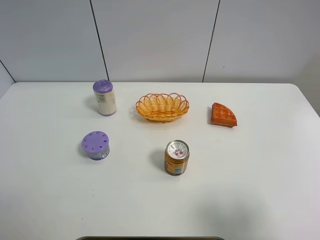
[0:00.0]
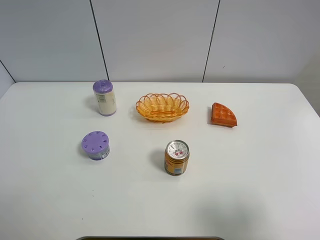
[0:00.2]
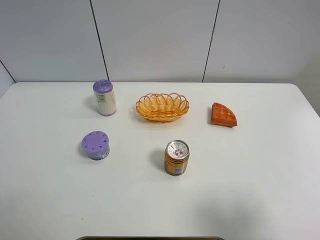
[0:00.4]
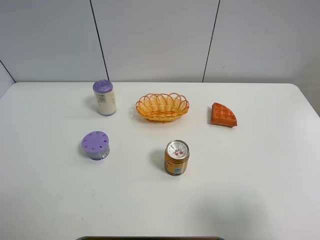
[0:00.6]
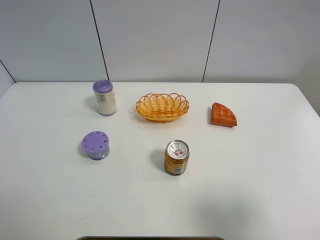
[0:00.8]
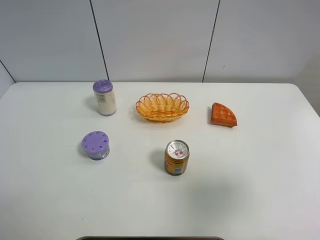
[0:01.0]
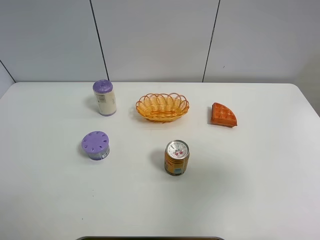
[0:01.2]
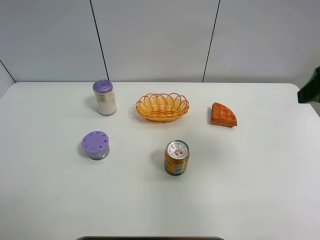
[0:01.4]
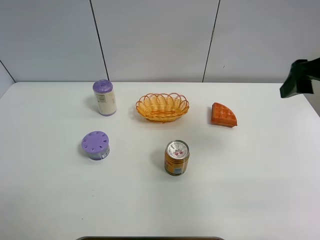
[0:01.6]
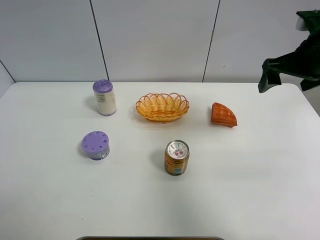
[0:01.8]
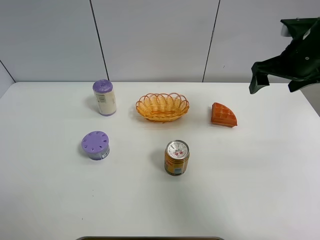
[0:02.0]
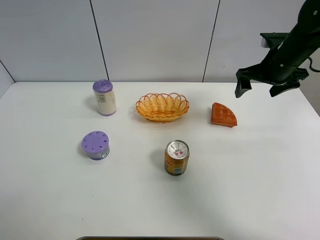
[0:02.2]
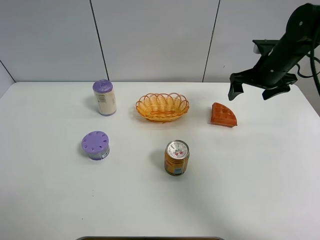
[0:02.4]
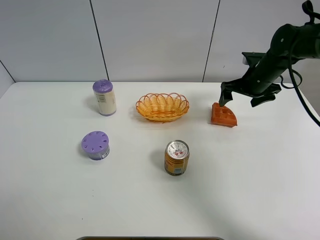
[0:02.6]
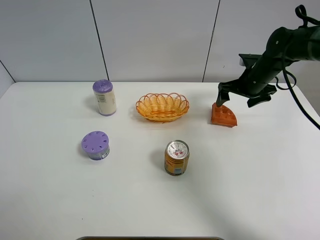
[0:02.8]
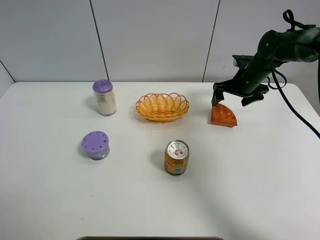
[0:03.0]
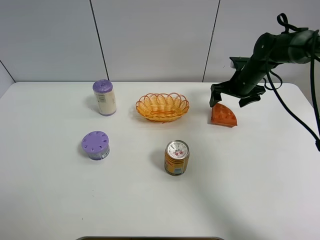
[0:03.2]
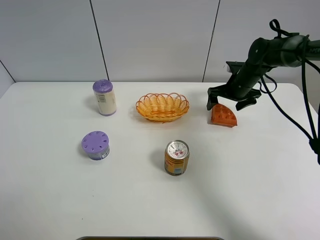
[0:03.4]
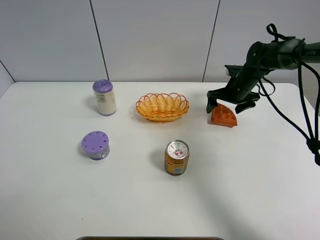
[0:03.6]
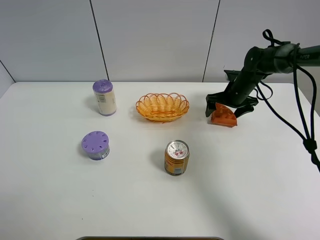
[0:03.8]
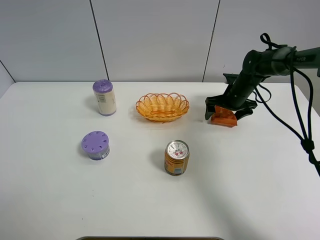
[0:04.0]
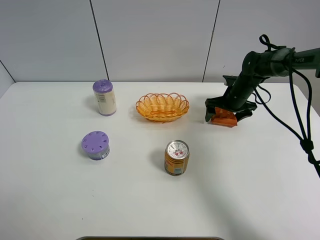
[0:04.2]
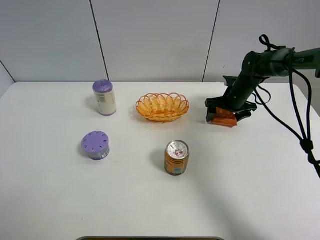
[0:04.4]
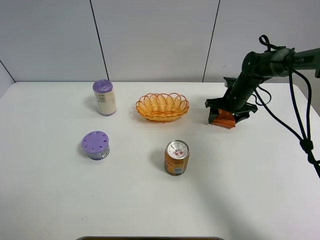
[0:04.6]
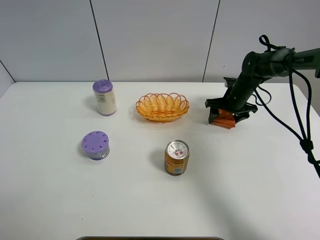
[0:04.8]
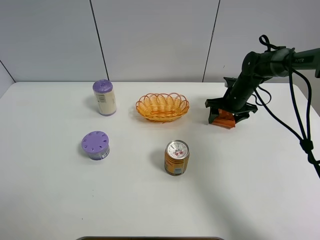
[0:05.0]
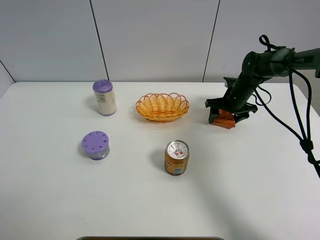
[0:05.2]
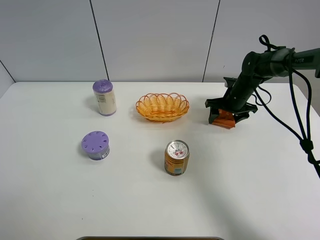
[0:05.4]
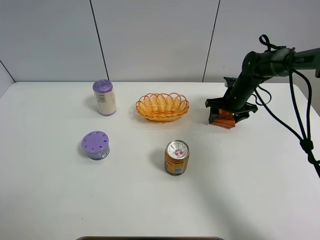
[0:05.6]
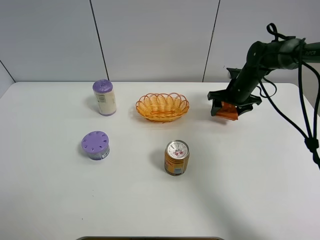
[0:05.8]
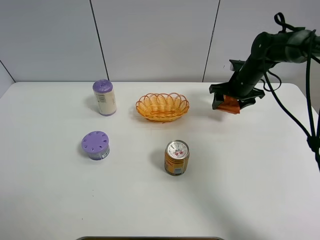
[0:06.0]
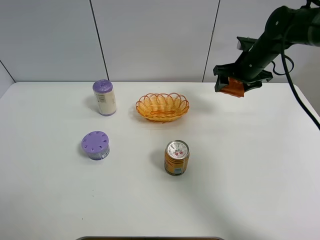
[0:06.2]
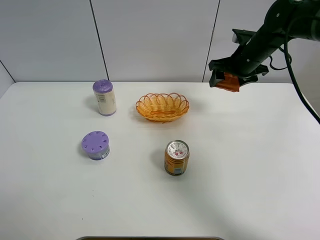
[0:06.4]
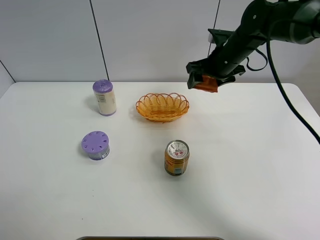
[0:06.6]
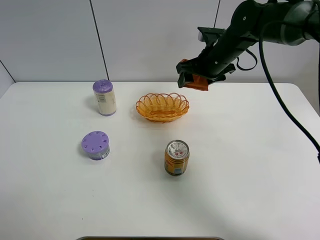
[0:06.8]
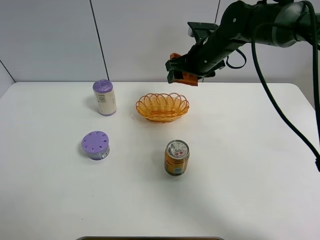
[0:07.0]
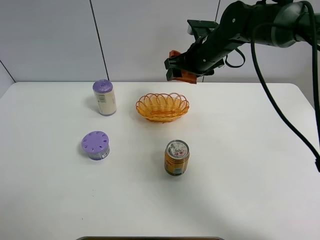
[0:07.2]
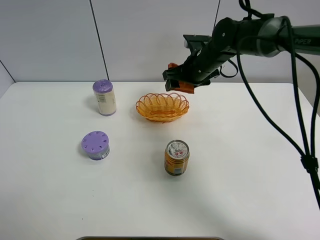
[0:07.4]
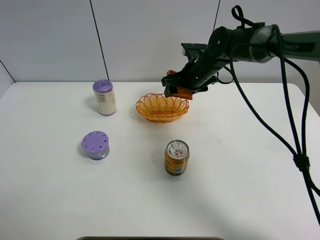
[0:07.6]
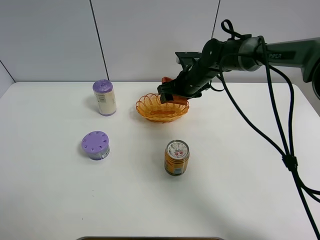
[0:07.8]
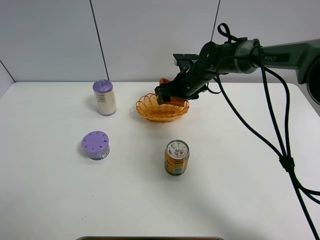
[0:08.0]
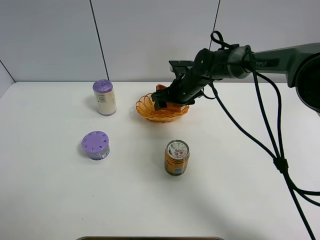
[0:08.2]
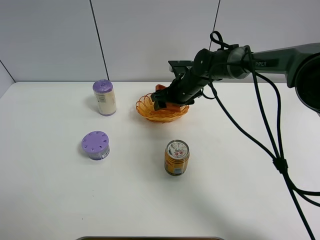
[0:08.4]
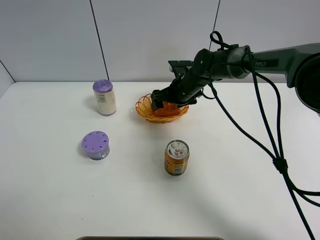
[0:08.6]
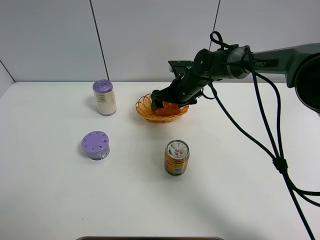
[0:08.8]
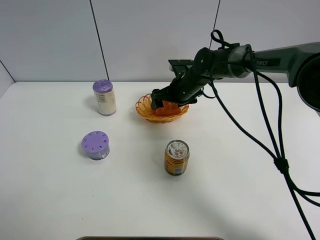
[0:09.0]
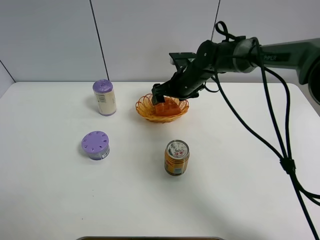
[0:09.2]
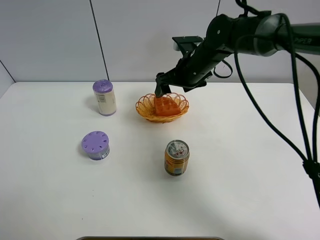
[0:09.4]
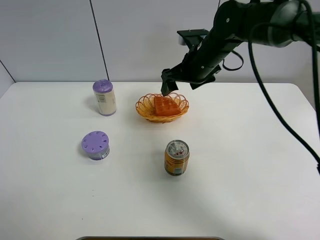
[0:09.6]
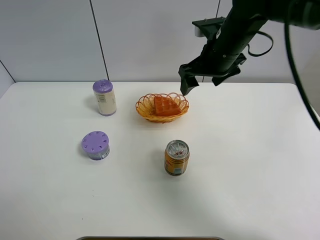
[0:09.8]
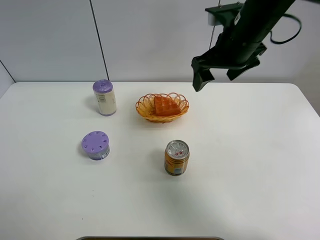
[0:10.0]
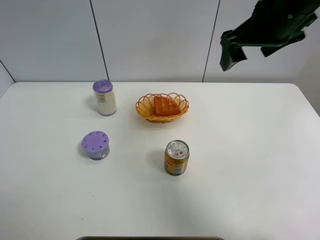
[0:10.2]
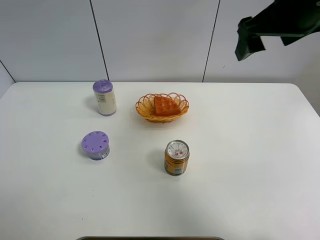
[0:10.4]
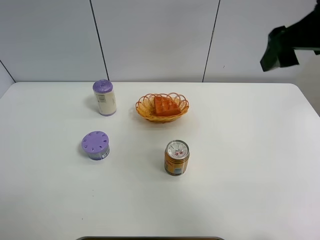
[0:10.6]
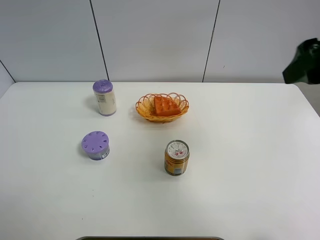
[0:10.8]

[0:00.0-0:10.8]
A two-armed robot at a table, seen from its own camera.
Task of the whole recording: Put the bakery in the basket.
Step, 0:00.0 to 0:04.6: Grasp the bread with right gripper.
Step, 0:04.8 to 0:09.6: Place the bread in the basket with right gripper.
0:00.0 to 0:01.6: The right gripper shifts roughly 25 cm forward.
0:01.6 to 0:03.0: The right gripper heads forward and downward, covering some 25 cm.
0:03.0 to 0:04.6: The right gripper is displaced downward by approximately 5 cm, and closes.
0:04.6 to 0:06.2: The right gripper goes about 10 cm upward.
0:06.2 to 0:07.8: The right gripper travels to the left and downward by roughly 15 cm.
0:07.8 to 0:09.2: The right gripper opens up.
0:09.2 to 0:10.8: The right gripper is displaced backward, upward and to the right by about 35 cm.

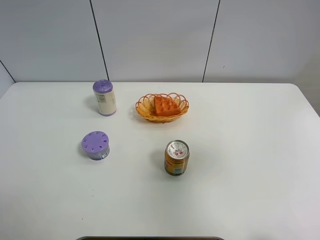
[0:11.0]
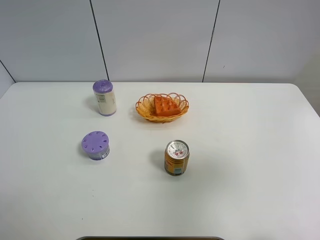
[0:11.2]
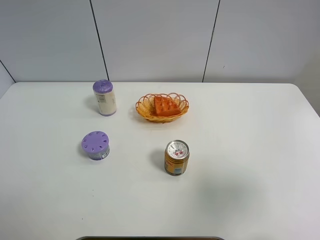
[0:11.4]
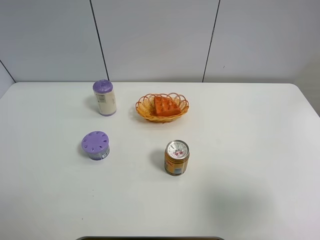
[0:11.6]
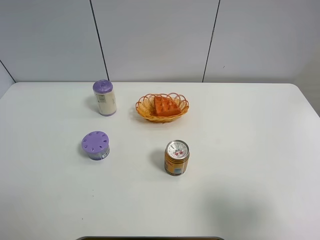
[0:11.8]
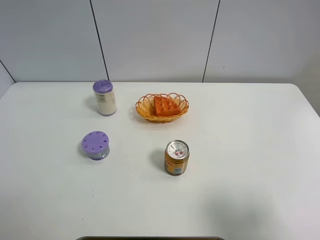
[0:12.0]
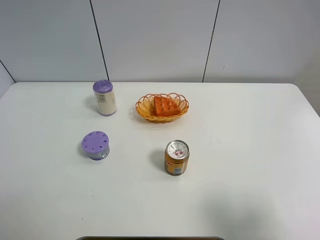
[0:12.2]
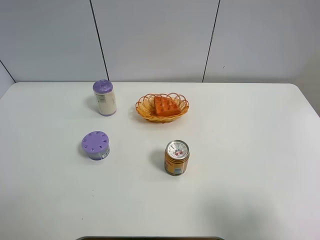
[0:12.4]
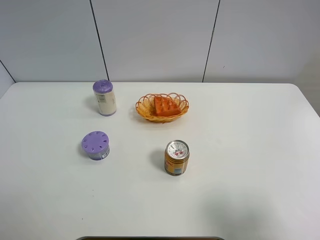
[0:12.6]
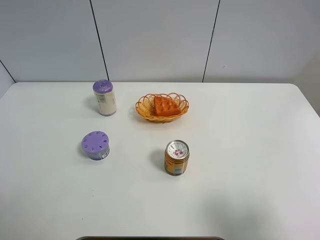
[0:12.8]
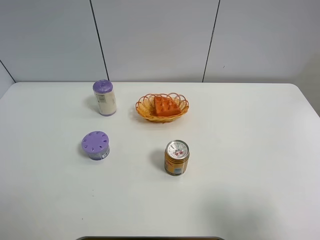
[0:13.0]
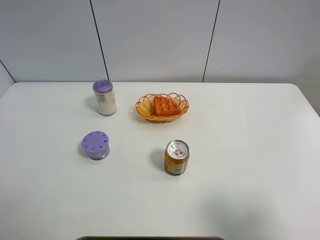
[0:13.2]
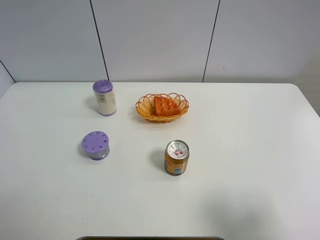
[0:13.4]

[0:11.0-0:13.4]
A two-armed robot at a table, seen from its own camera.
Task of the whole recording: Put the bakery in the basket.
0:11.0 to 0:12.2: The right gripper heads backward and downward, covering about 15 cm.
0:12.2 to 0:13.4: The two grippers keep their place.

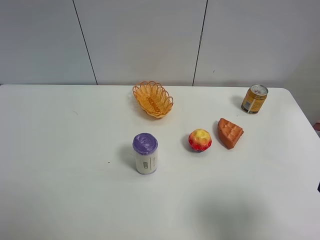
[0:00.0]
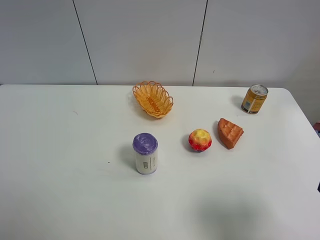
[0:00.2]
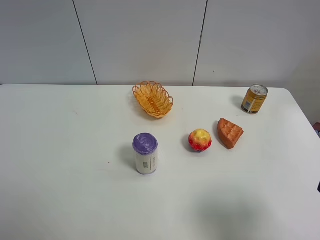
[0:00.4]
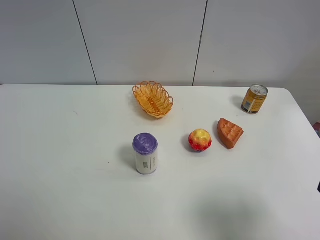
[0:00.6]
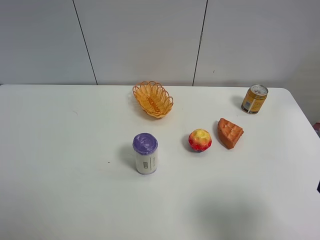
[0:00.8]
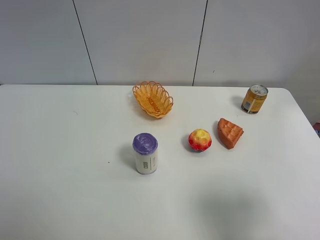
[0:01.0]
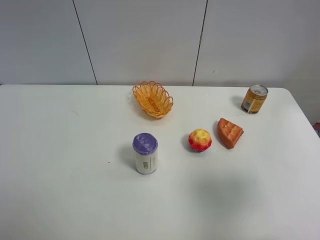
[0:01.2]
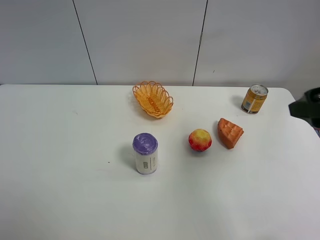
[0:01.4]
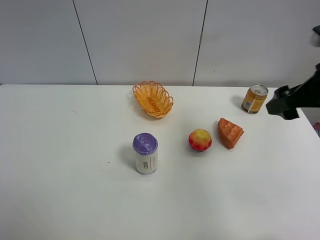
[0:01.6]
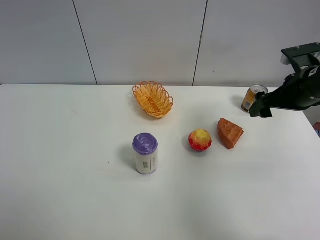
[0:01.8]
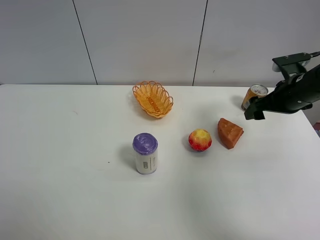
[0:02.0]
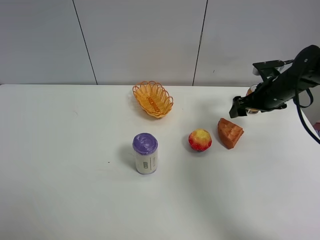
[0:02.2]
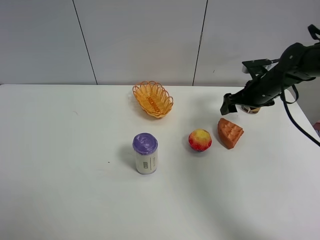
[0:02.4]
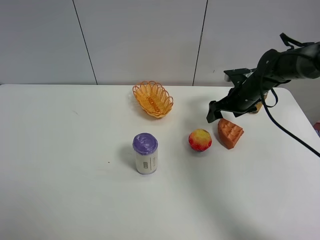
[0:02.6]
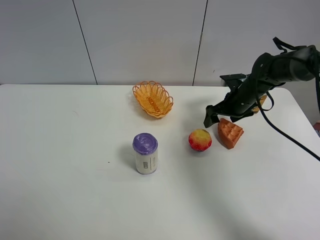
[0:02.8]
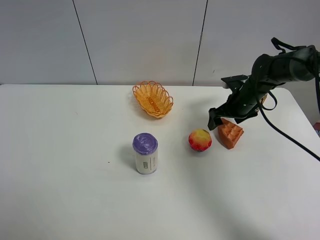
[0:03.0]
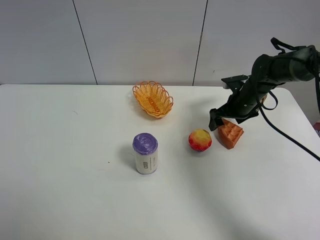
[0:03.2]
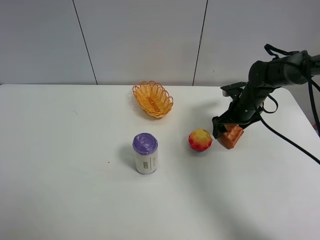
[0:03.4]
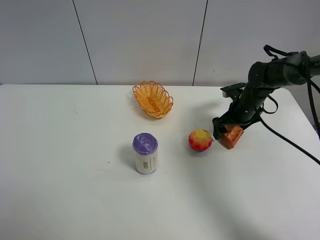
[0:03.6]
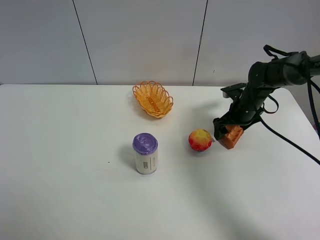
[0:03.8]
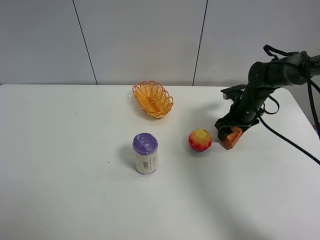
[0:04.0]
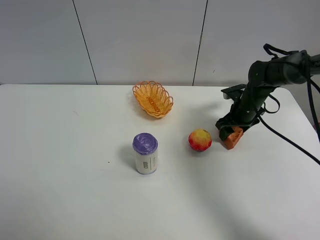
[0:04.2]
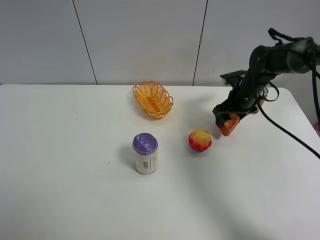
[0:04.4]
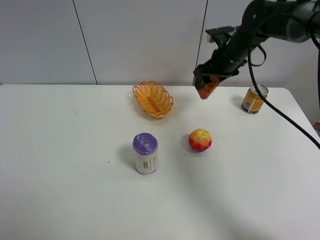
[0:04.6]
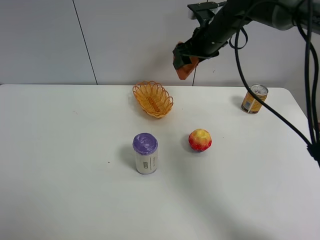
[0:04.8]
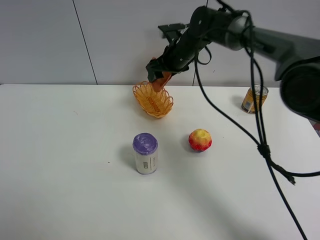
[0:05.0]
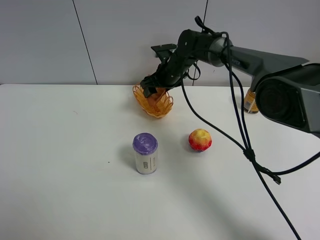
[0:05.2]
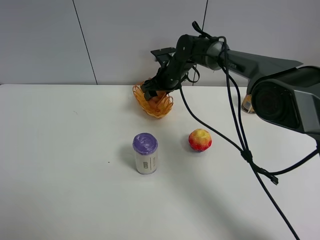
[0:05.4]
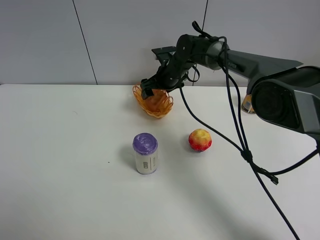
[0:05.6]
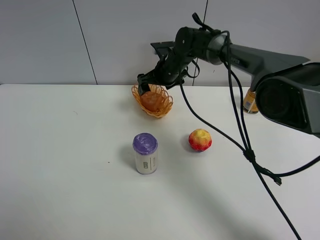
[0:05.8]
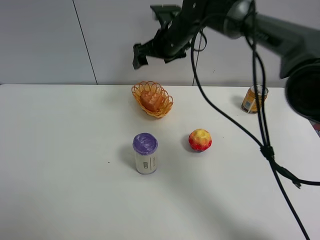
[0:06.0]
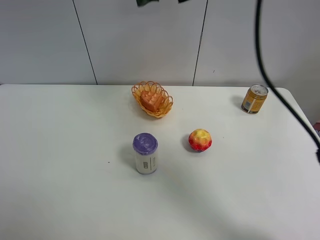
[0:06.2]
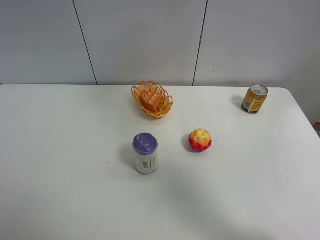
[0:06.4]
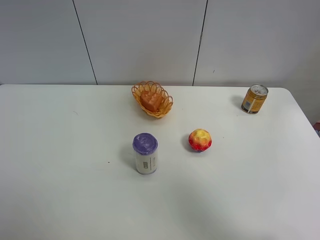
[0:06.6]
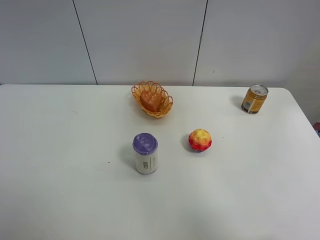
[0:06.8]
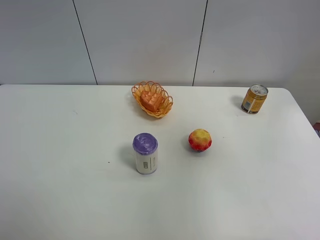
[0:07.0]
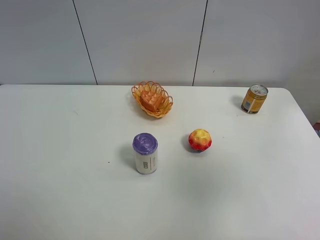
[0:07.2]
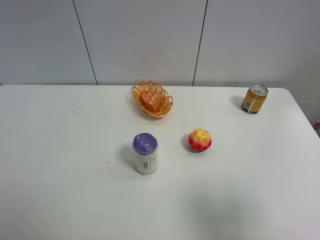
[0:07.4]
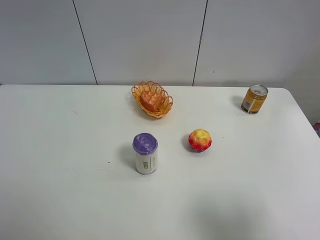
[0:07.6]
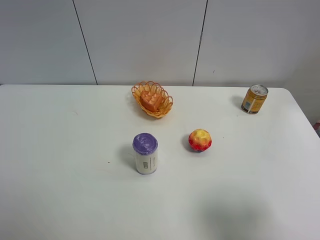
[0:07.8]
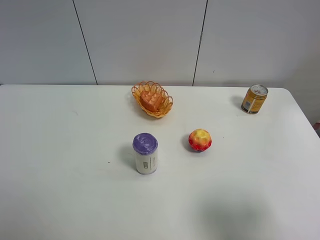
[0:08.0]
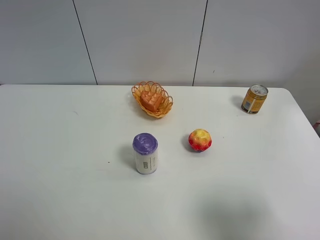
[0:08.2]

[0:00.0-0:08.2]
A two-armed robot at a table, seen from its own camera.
Task of the whole recording: Put the bakery in the basket.
Step, 0:00.0 to 0:04.0: Grasp the bread with right gripper.
Step, 0:04.2 to 0:06.0: Place the bread in the basket with right gripper.
0:00.0 to 0:01.6: The right gripper is displaced forward by roughly 25 cm.
0:01.6 to 0:03.2: The right gripper is displaced downward and forward by about 25 cm.
0:03.2 to 0:05.0: The right gripper heads to the left and forward, covering roughly 20 cm, and closes.
0:05.0 to 0:06.6: The right gripper travels upward, backward and to the right by about 50 cm, and opens.
0:06.6 to 0:08.2: The right gripper moves downward and backward, about 40 cm.
